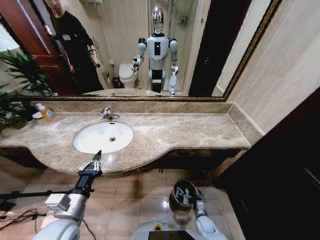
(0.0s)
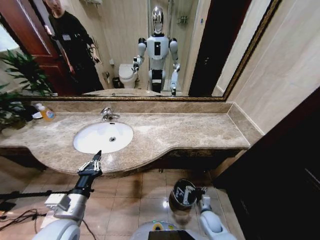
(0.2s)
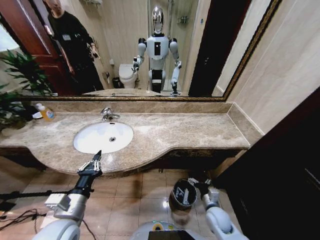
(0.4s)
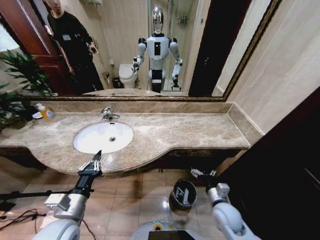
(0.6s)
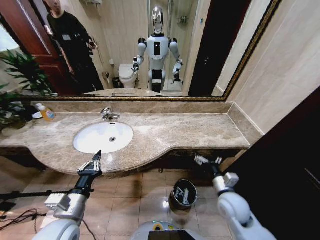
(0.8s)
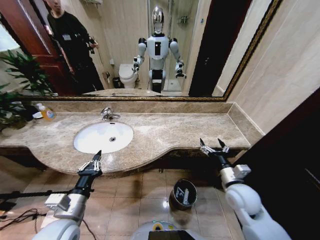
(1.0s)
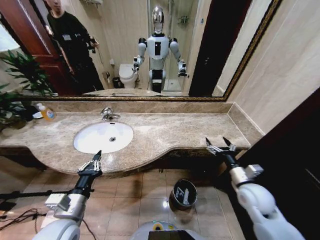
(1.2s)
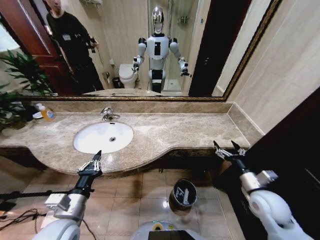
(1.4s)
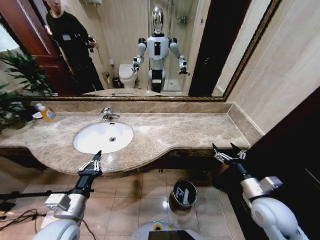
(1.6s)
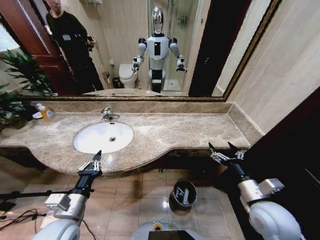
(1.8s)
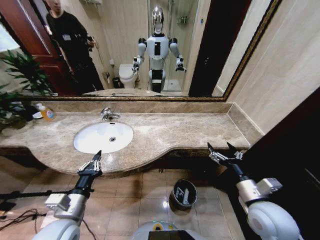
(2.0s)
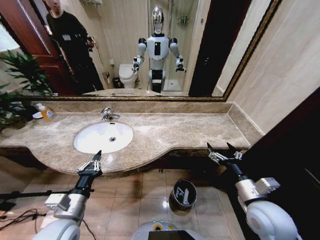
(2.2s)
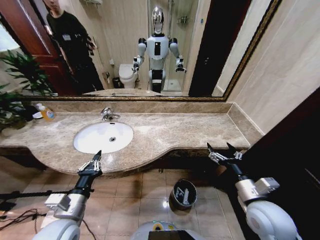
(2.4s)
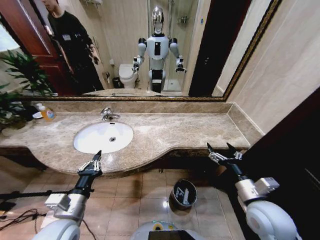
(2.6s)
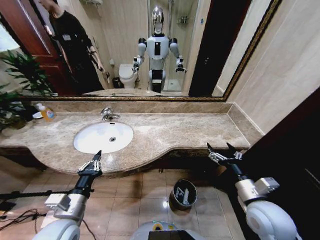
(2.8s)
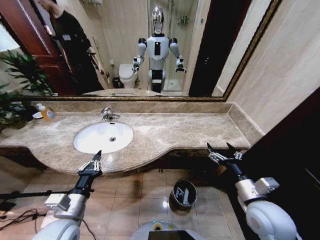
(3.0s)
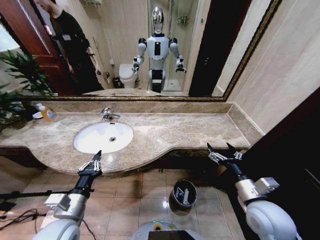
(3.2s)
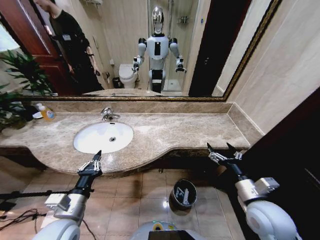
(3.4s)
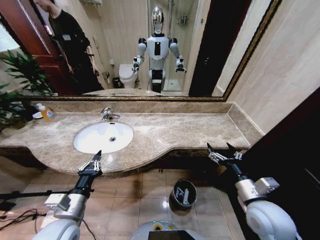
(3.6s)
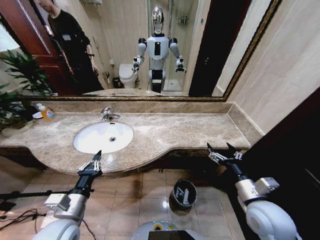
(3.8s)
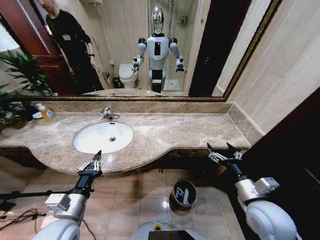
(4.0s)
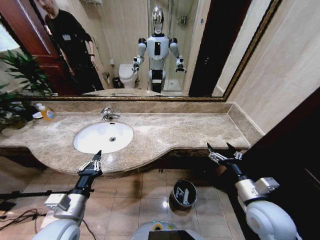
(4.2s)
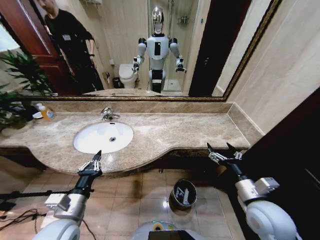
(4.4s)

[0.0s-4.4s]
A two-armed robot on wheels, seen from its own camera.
Task of the whole recording: Pick up the trash from the sink and place it in the trash bin.
0.0s to 1.4s: The right gripper goes approximately 35 cm upward.
1.4s to 3.0s: The right gripper shifts roughly 10 cm to the left and backward.
3.0s to 4.4s: Neither gripper changes place.

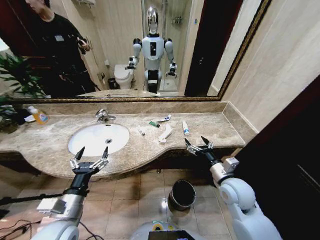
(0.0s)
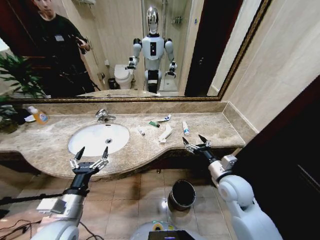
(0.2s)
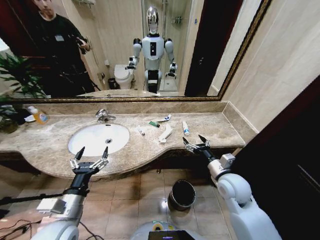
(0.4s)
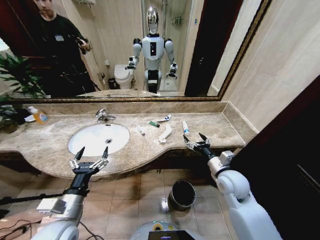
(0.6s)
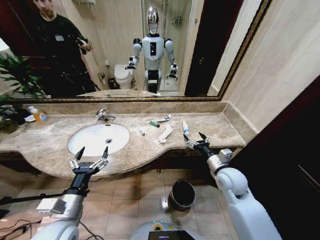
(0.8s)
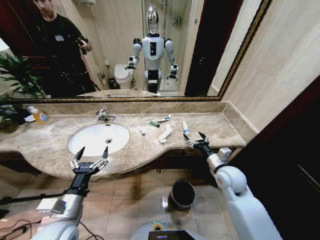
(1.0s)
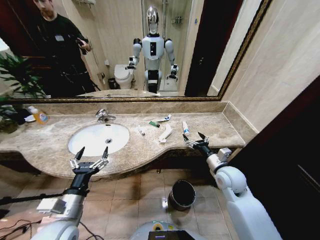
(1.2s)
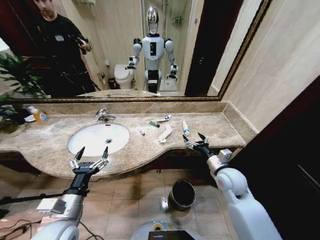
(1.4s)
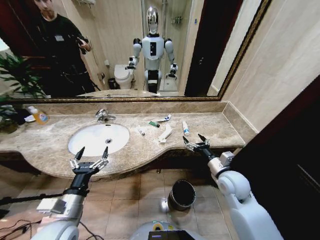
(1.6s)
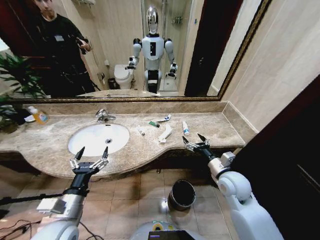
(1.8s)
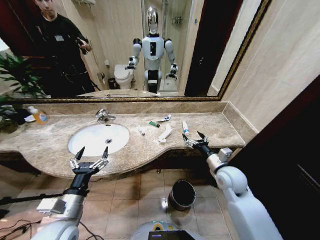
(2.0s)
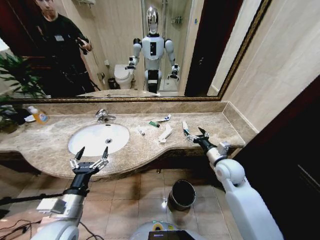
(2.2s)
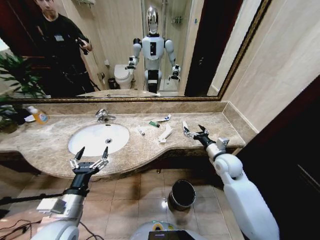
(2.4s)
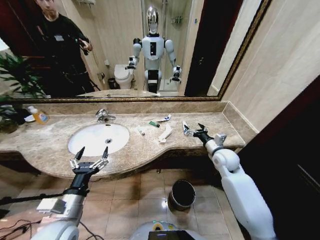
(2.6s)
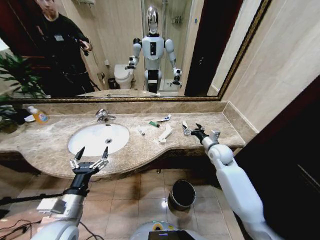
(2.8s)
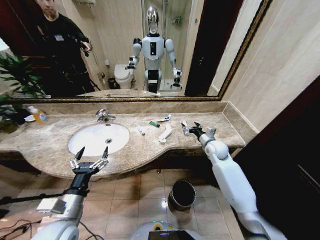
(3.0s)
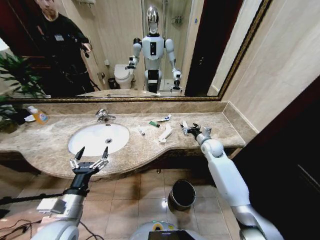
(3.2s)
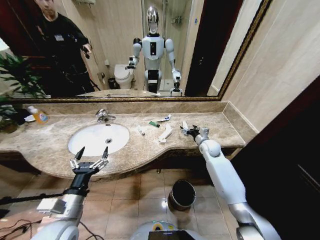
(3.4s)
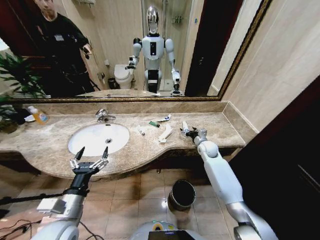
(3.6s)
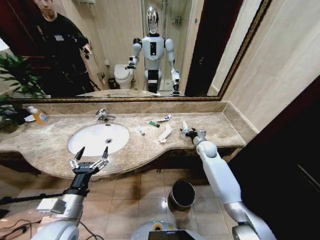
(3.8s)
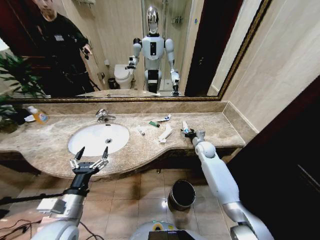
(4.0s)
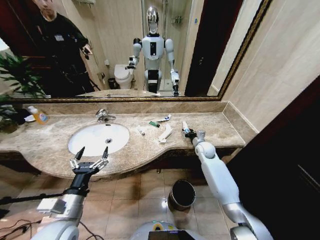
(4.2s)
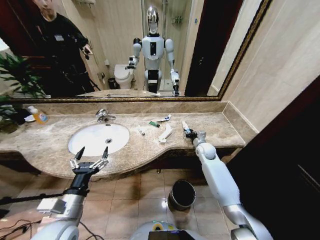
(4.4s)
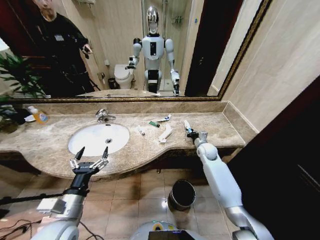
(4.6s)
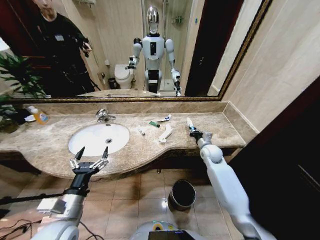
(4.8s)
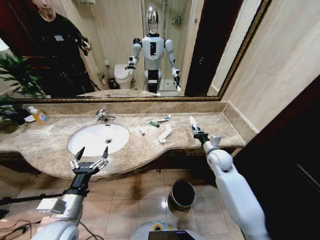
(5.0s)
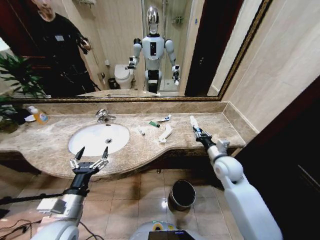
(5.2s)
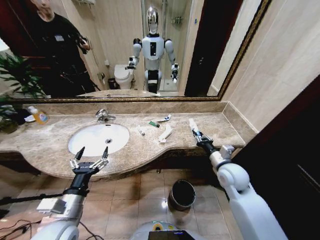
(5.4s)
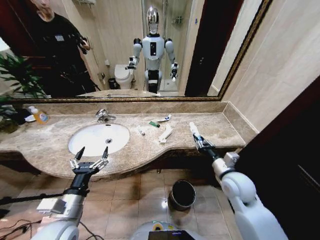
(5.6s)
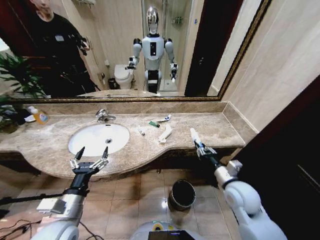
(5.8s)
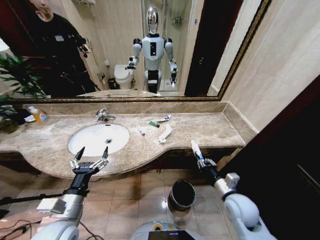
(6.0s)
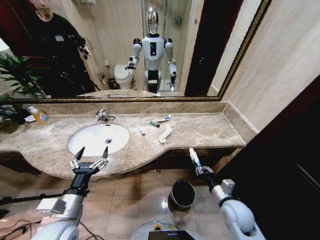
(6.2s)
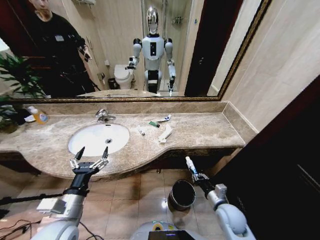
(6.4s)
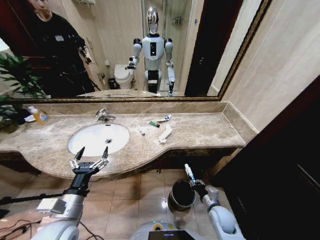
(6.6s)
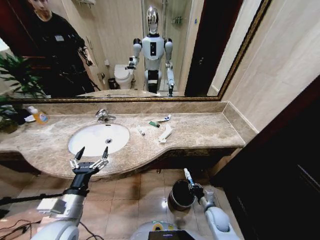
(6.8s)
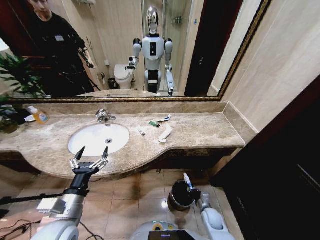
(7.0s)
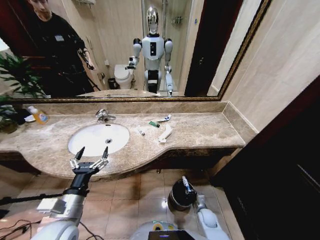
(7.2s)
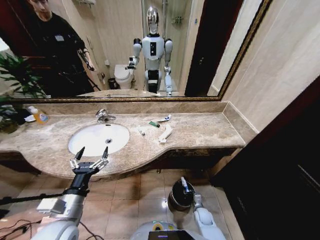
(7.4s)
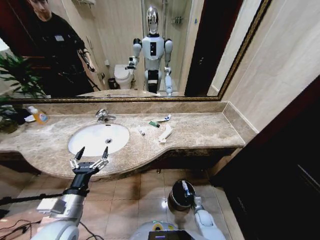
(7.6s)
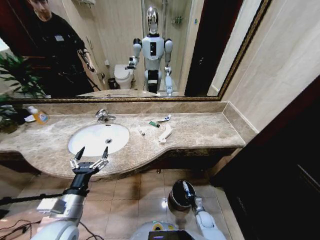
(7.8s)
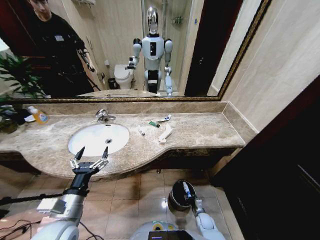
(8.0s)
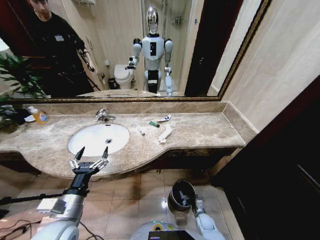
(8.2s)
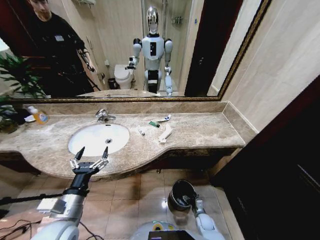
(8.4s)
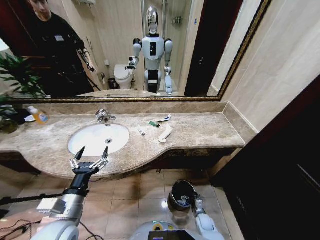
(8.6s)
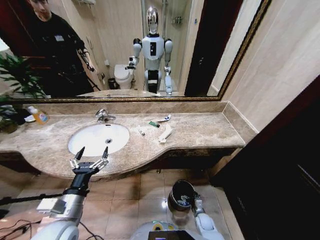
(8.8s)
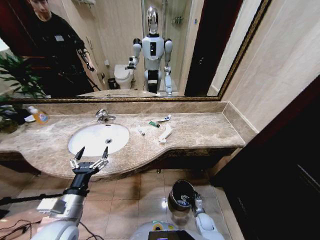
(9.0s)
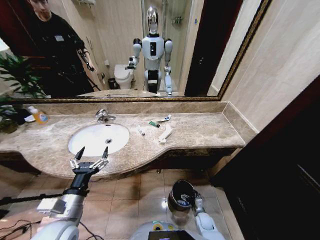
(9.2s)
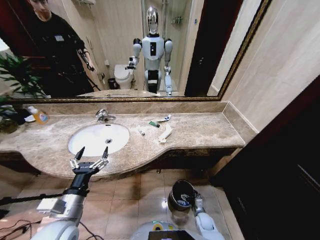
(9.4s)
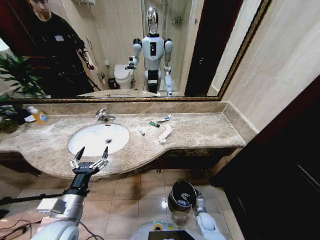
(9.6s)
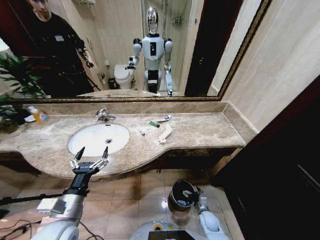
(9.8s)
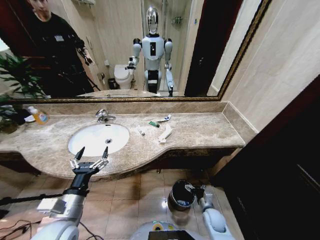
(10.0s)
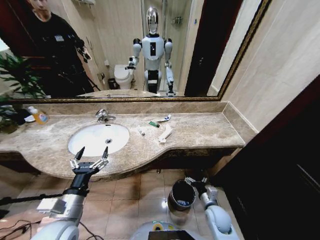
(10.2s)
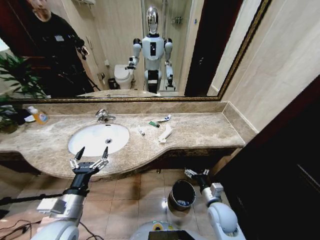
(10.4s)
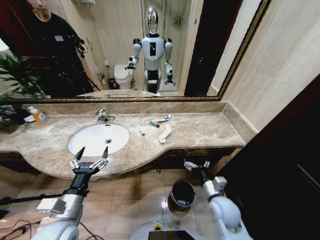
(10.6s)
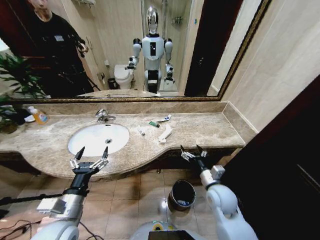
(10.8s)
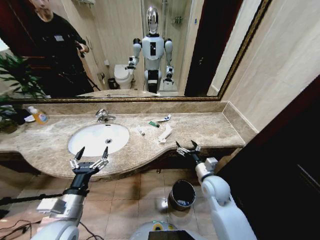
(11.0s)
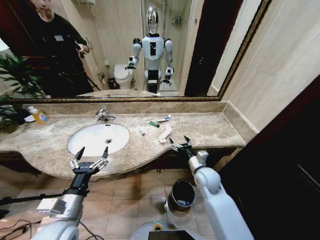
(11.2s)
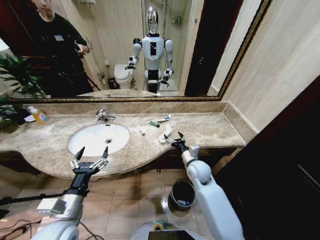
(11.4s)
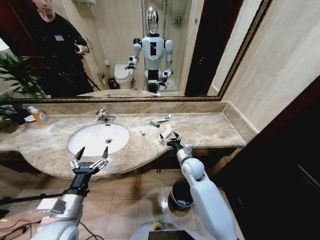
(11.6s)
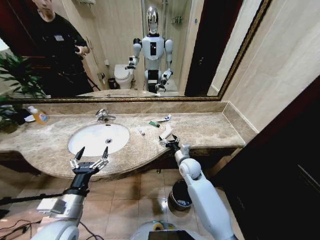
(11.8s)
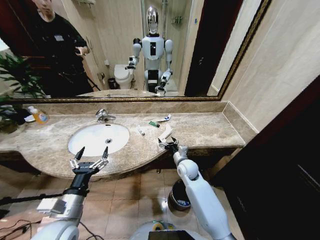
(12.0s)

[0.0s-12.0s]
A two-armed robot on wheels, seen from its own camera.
Task of the whole recording: Pick up the trash from the sink and place it in the trash bin.
1.6s to 3.0s: The right gripper moves forward, roughly 15 cm.
3.0s to 4.4s: The right gripper goes approximately 5 cm downward, and closes its fingers.
4.4s to 6.0s: The right gripper travels backward by approximately 25 cm.
6.0s to 7.6s: The right gripper moves downward, some 30 cm.
7.6s to 9.0s: The right gripper opens up.
9.0s to 10.4s: The right gripper shifts approximately 25 cm upward.
10.4s to 12.0s: The right gripper goes approximately 20 cm forward and to the left.

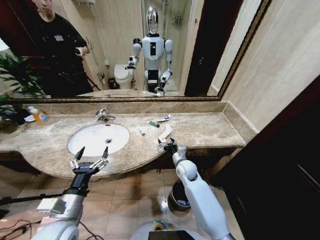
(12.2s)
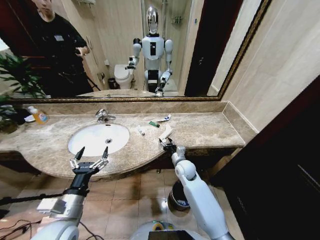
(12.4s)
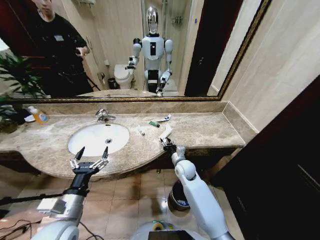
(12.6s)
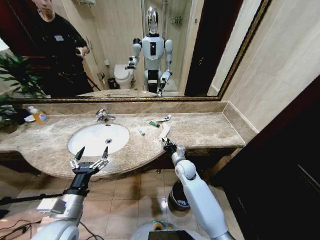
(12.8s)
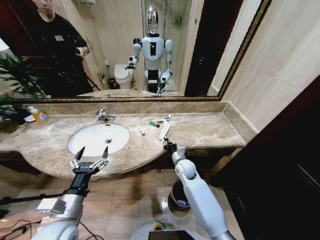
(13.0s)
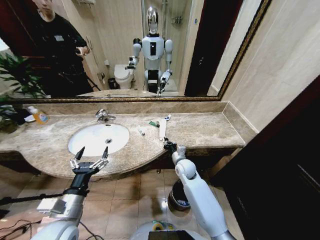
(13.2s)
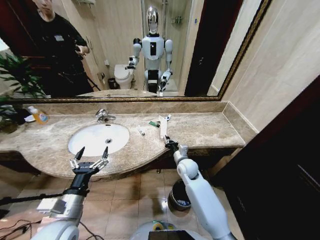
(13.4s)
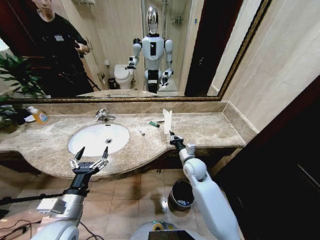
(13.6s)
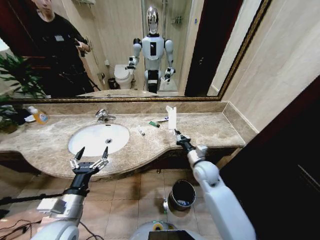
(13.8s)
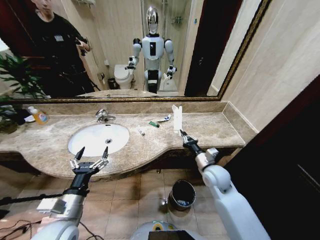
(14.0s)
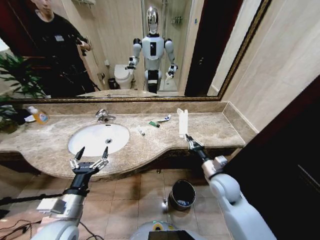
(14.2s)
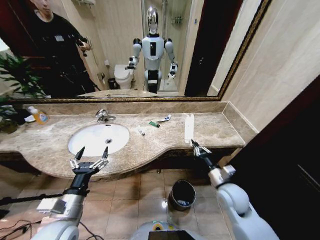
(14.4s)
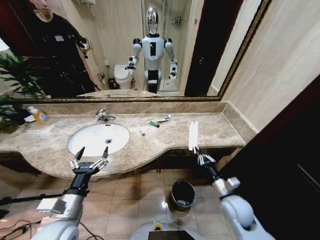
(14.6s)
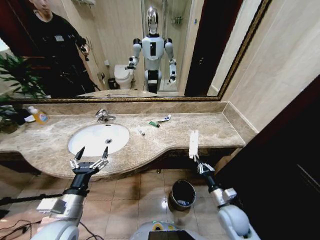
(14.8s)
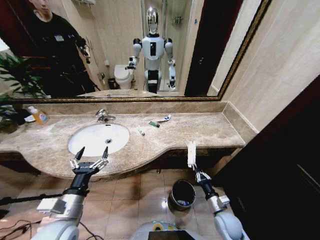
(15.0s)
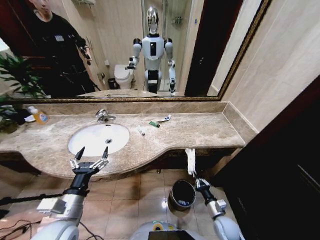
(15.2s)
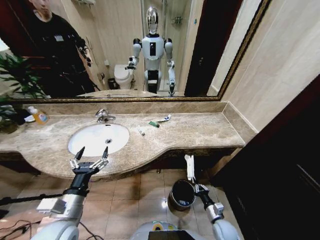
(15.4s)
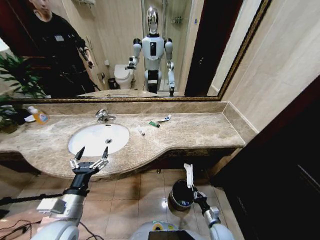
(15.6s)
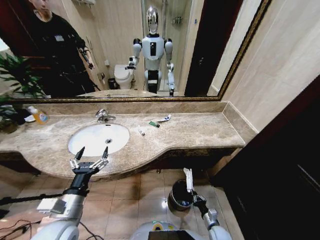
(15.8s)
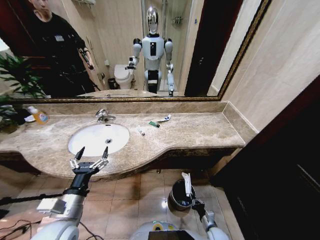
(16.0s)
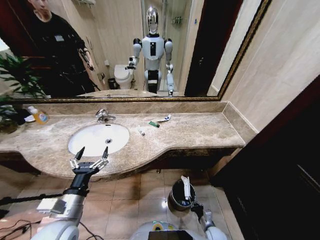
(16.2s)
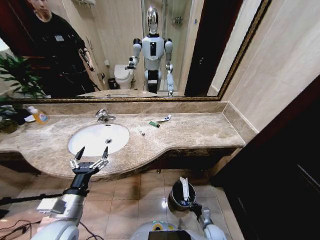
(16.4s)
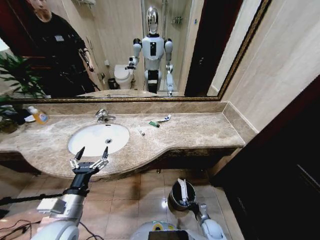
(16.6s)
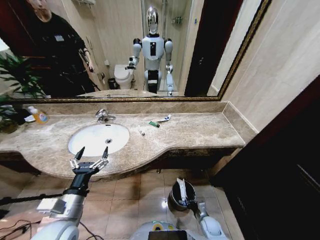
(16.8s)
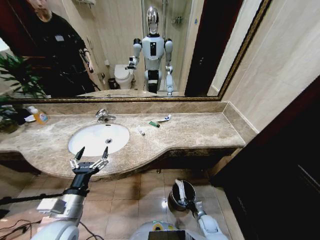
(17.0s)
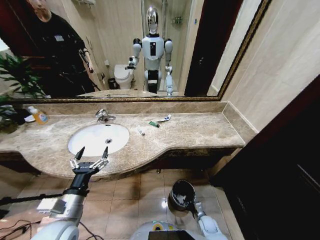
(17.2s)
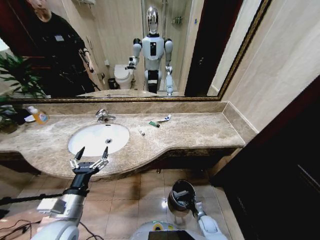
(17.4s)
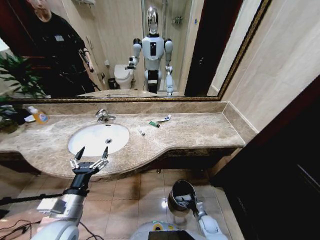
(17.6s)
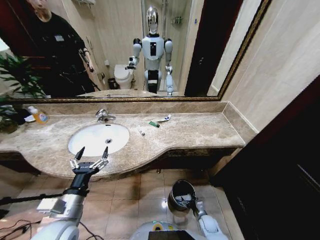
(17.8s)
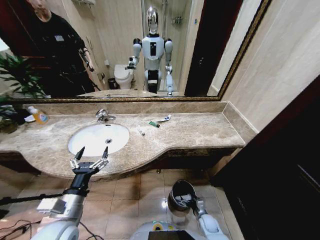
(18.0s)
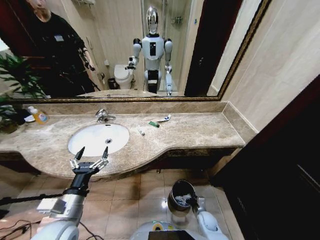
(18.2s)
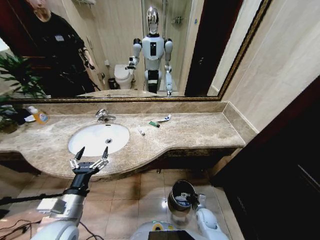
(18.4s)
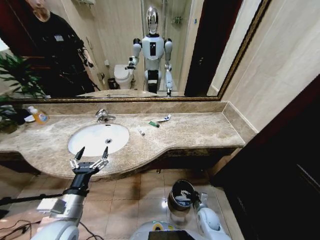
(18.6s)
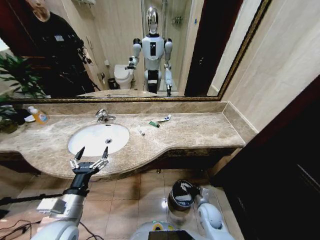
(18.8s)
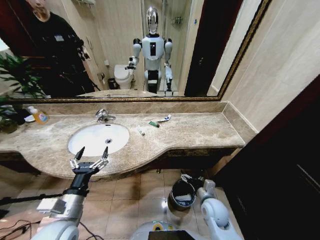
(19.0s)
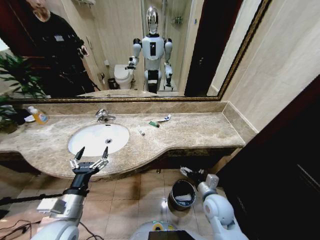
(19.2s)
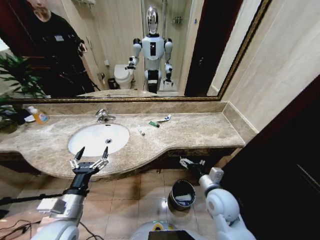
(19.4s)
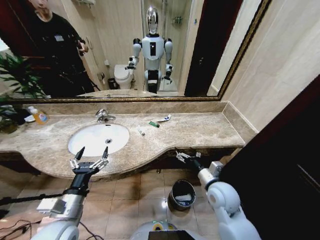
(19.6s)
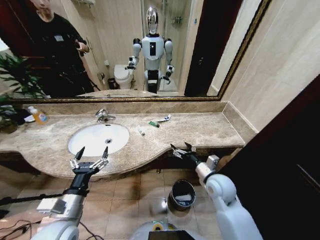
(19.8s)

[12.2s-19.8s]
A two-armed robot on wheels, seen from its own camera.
Task of the whole recording: Pick up the trash from the sink and place it in the trash bin.
12.2s to 13.8s: The right gripper goes some 10 cm upward and to the right, and closes.
13.8s to 15.2s: The right gripper goes roughly 30 cm downward, backward and to the right.
15.2s to 16.8s: The right gripper moves downward, some 10 cm.
16.8s to 18.2s: The right gripper opens.
18.2s to 19.8s: The right gripper travels upward by some 30 cm.
